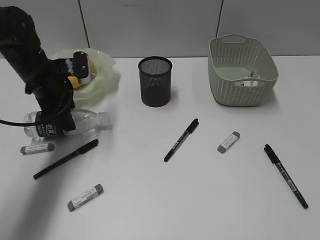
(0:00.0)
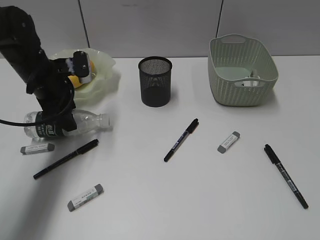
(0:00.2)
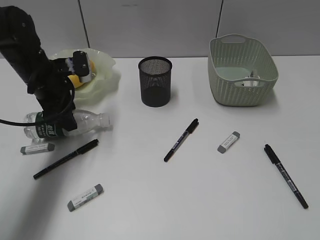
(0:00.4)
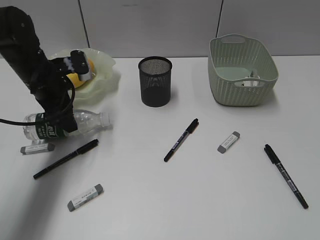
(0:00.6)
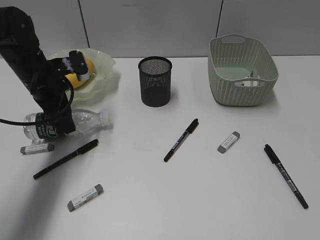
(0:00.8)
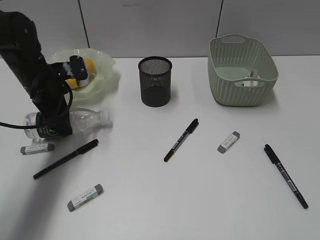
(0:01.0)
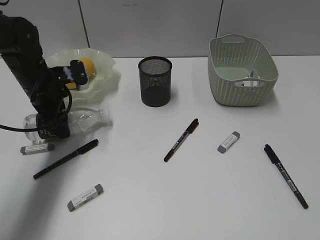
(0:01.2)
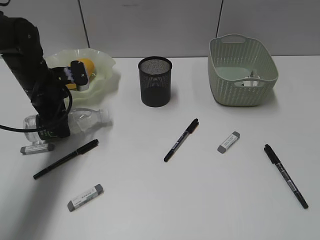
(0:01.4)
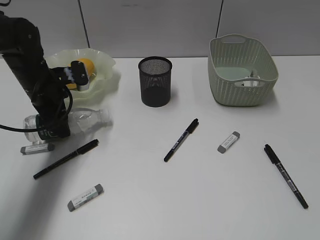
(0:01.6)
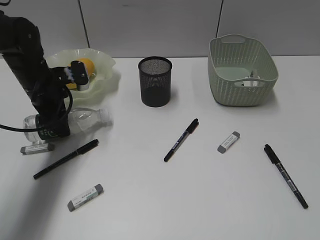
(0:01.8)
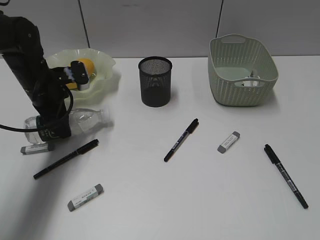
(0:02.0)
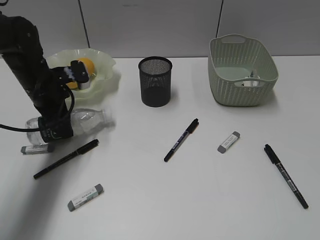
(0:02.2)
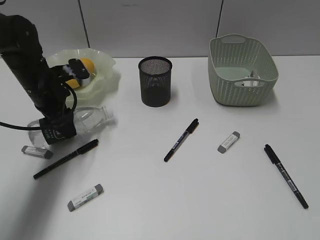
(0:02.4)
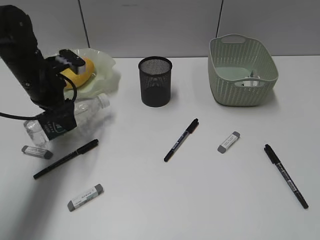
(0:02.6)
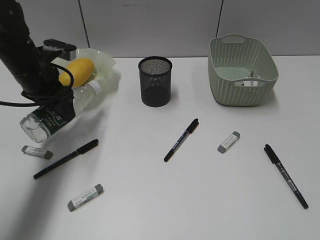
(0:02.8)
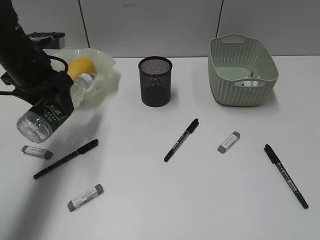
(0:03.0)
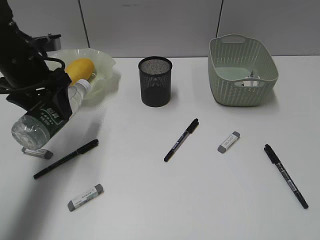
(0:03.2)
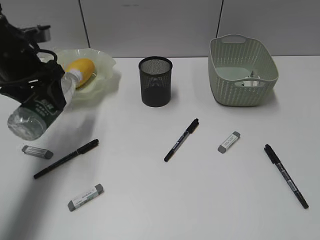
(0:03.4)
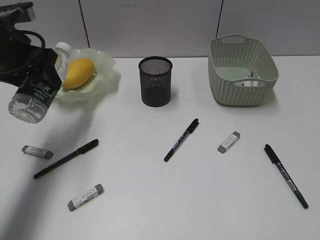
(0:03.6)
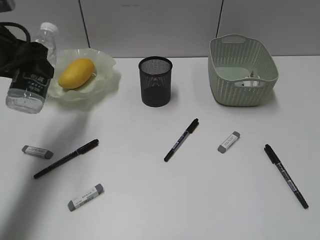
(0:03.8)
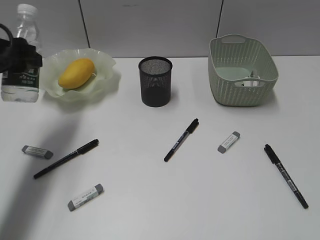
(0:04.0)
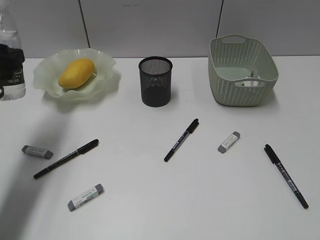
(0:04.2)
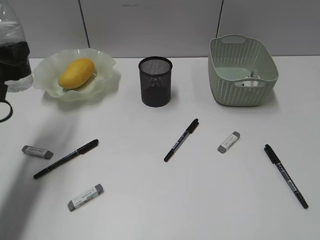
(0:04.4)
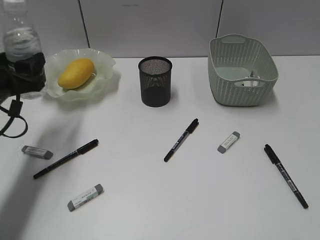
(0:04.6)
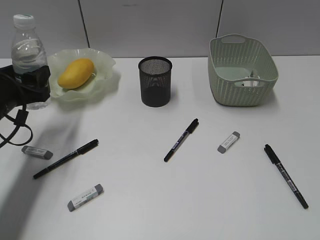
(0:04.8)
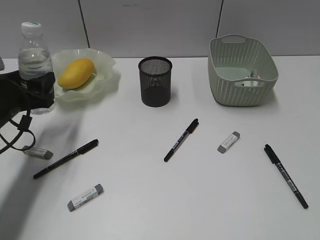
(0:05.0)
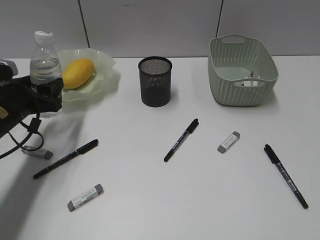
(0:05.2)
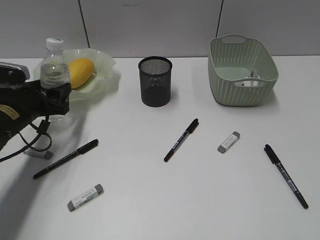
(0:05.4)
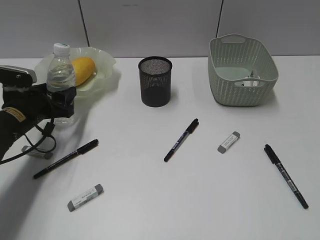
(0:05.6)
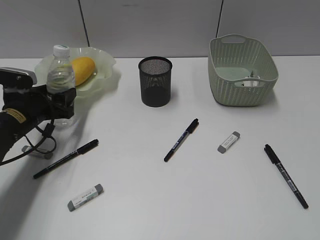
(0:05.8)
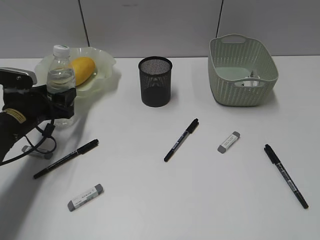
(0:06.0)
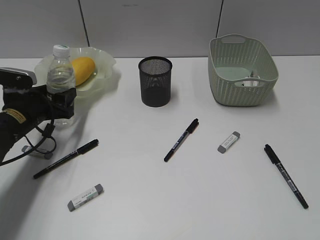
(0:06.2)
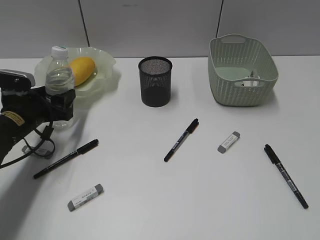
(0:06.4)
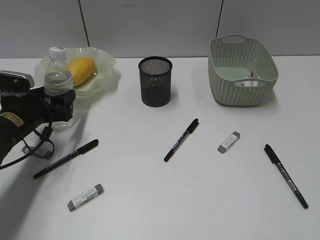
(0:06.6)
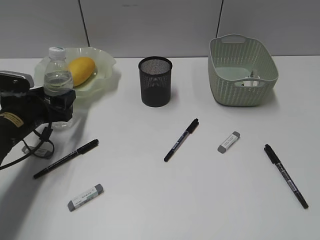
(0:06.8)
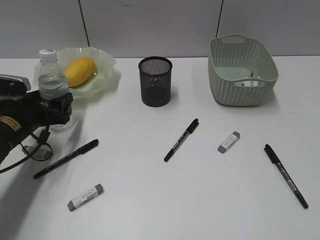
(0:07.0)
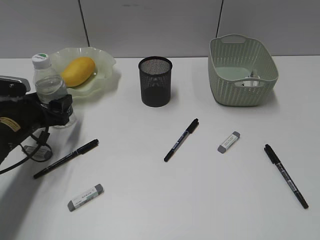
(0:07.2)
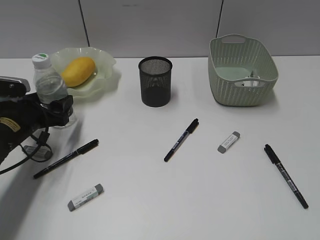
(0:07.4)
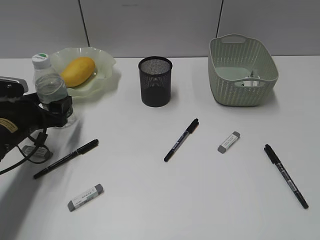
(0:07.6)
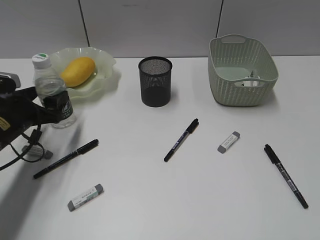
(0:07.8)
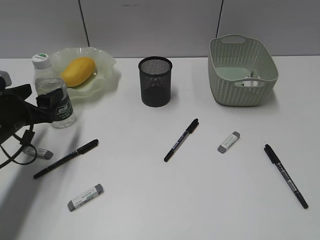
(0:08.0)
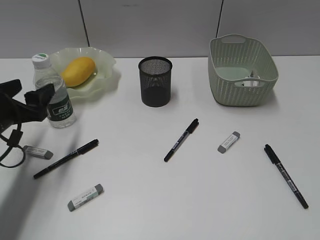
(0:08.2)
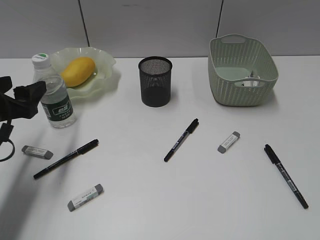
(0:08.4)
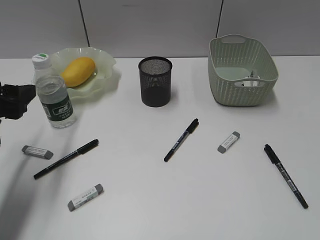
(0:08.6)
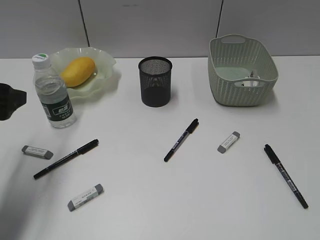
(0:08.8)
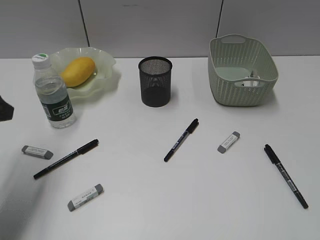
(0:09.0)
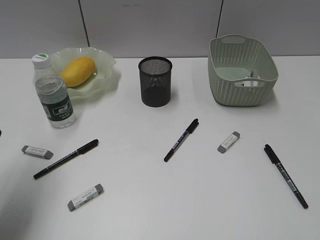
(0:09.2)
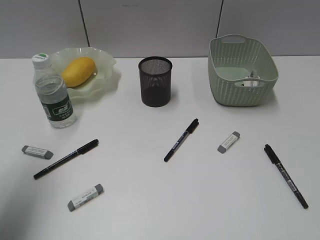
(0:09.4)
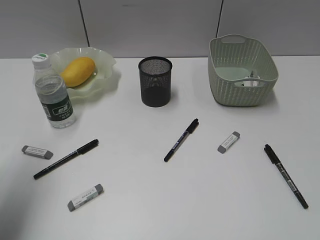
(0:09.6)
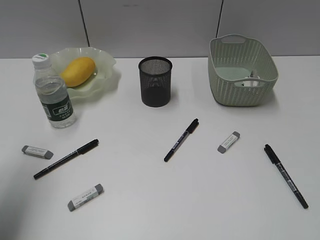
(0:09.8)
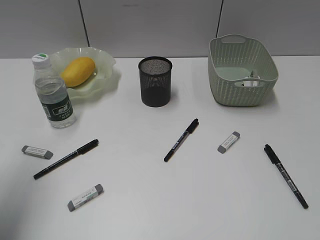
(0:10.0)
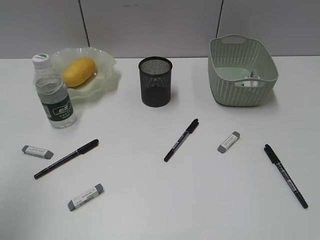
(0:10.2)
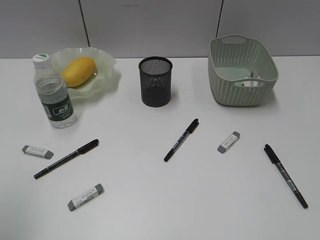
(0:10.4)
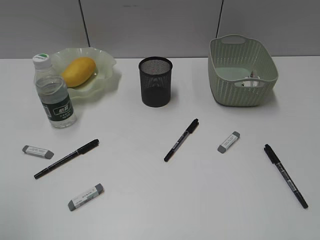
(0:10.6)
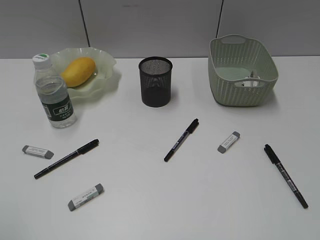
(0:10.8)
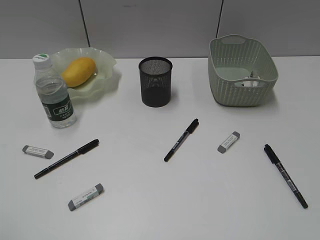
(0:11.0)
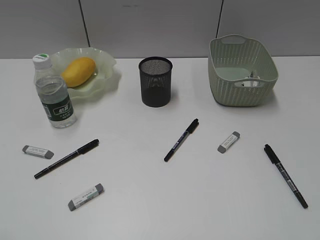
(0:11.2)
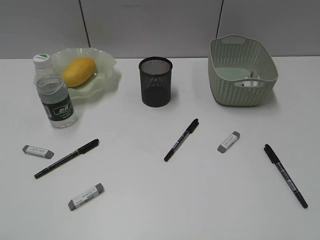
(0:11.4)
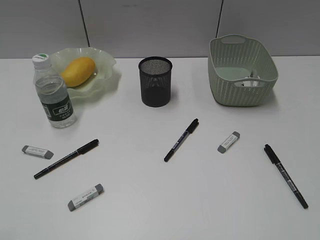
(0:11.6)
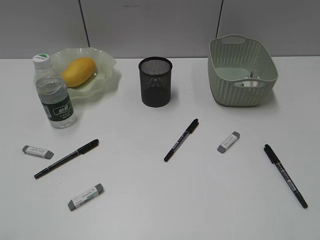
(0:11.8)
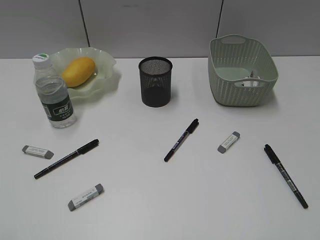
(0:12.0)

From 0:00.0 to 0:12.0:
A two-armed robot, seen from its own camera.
Step, from 0:00.0 to 0:02.0: Grasp the bottle with left gripper.
Step, from 0:02.2 to 0:08.0: Stand the bottle with left gripper.
From 0:00.0 to 0:01.6: The grippers move only a little.
From 0:01.6 to 0:03.0: The left gripper travels upward by roughly 5 cm.
From 0:03.0 to 0:04.4: The left gripper is displaced backward and to the left by about 10 cm.
From 0:04.4 to 0:06.0: The left gripper moves downward and forward, roughly 15 cm.
From 0:06.0 to 0:07.6: The grippers move only a little.
From 0:07.6 to 0:09.0: The left gripper heads upward and backward, covering roughly 15 cm.
From 0:09.0 to 0:10.4: The left gripper heads backward and upward, covering roughly 15 cm.

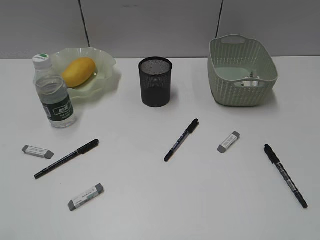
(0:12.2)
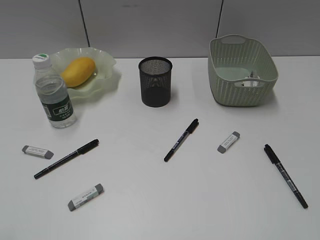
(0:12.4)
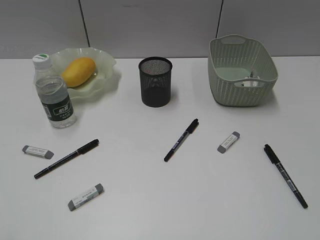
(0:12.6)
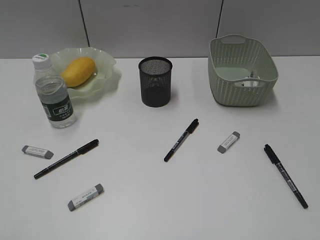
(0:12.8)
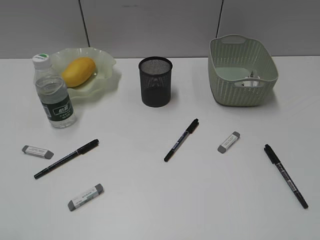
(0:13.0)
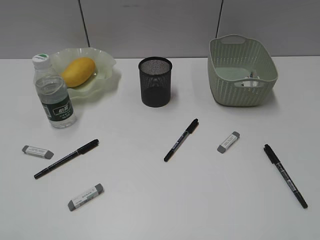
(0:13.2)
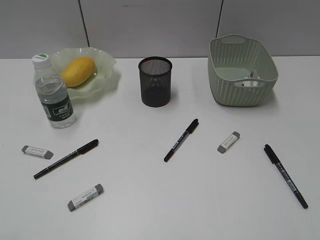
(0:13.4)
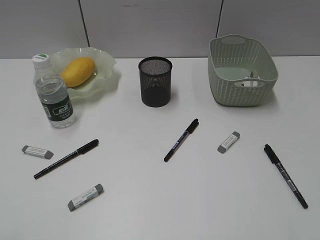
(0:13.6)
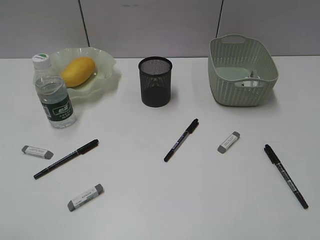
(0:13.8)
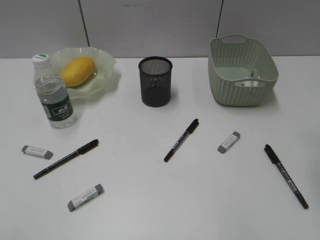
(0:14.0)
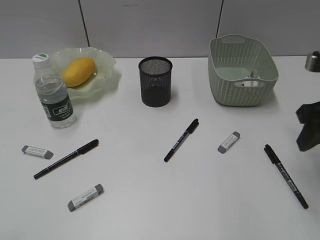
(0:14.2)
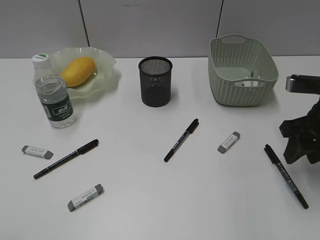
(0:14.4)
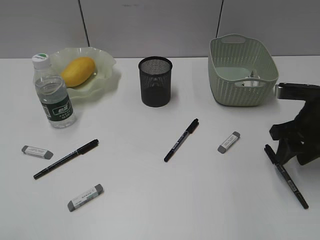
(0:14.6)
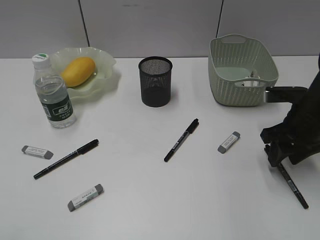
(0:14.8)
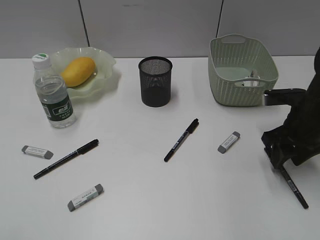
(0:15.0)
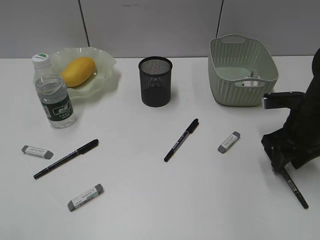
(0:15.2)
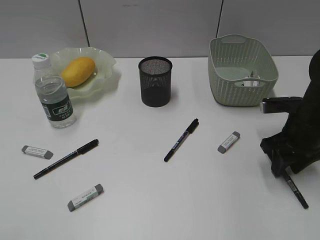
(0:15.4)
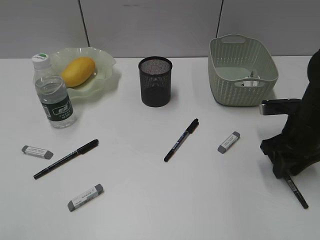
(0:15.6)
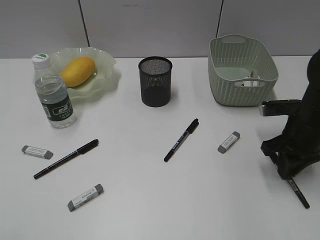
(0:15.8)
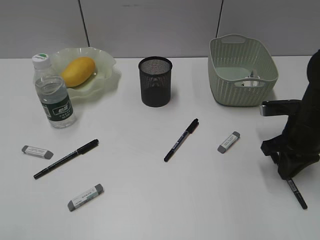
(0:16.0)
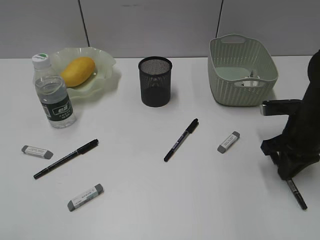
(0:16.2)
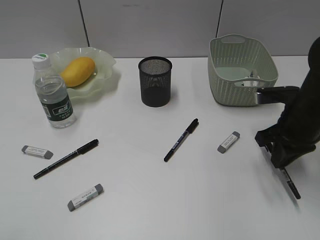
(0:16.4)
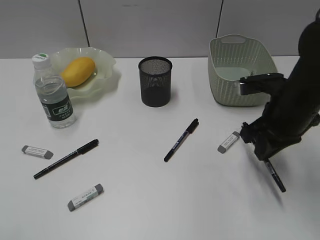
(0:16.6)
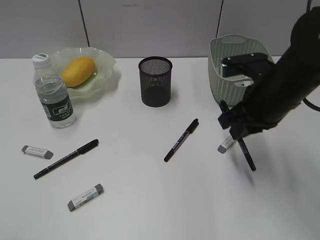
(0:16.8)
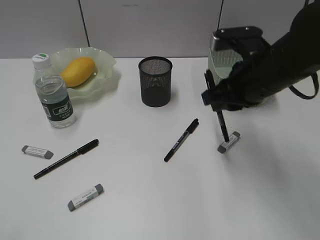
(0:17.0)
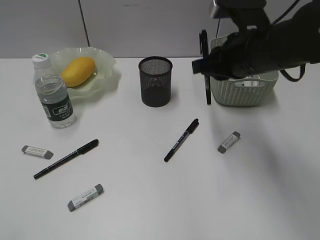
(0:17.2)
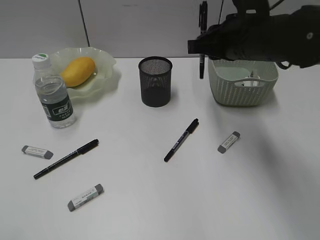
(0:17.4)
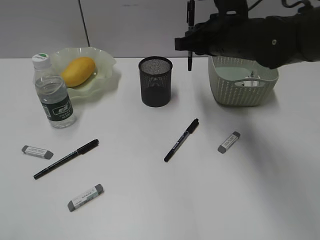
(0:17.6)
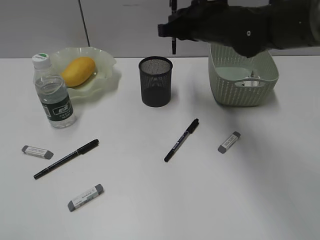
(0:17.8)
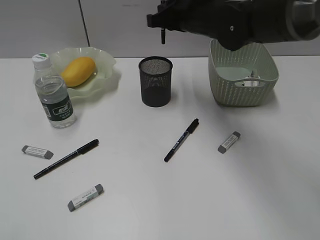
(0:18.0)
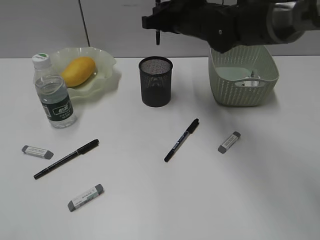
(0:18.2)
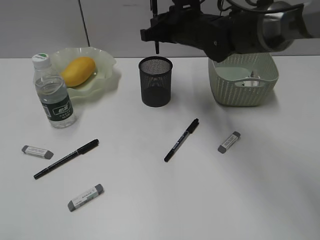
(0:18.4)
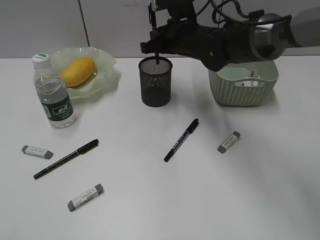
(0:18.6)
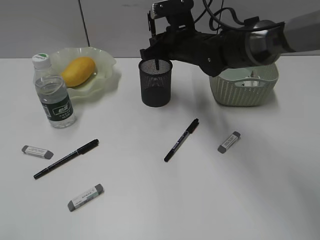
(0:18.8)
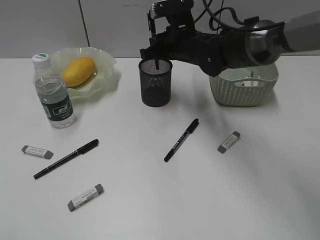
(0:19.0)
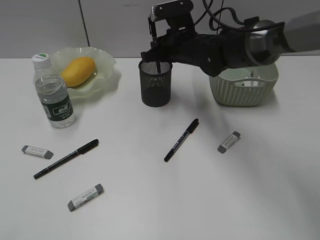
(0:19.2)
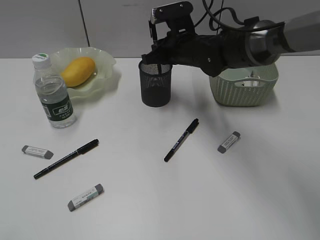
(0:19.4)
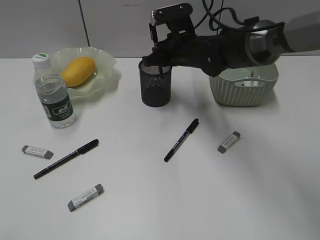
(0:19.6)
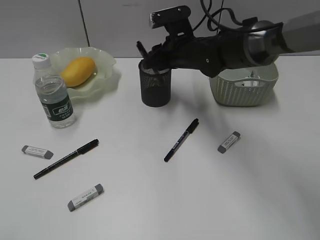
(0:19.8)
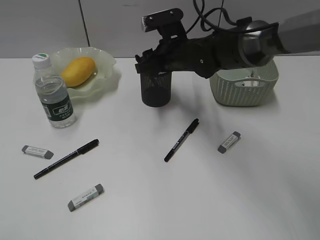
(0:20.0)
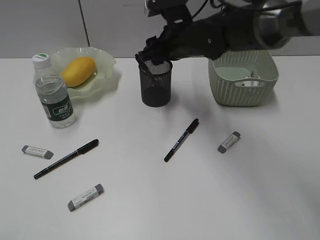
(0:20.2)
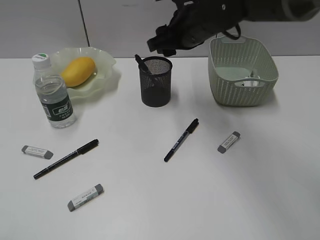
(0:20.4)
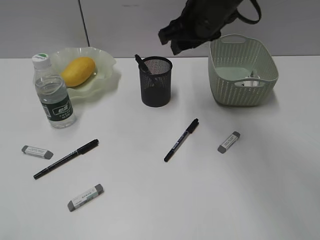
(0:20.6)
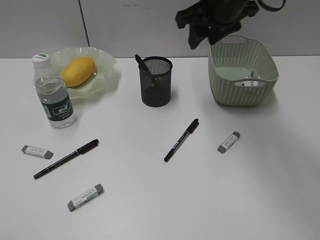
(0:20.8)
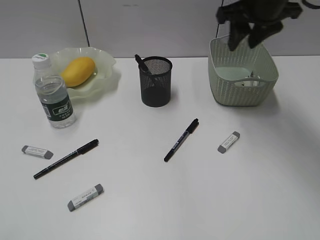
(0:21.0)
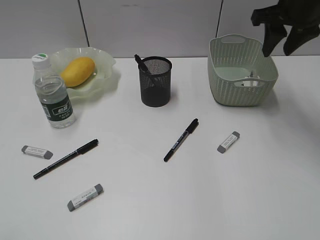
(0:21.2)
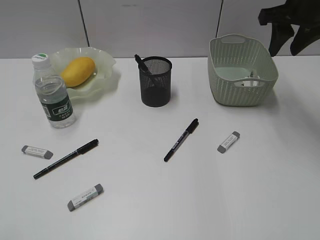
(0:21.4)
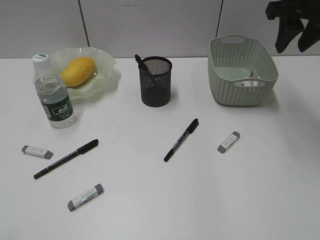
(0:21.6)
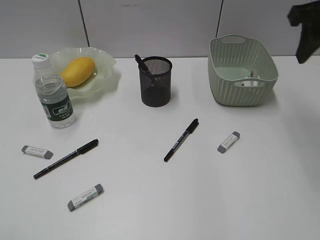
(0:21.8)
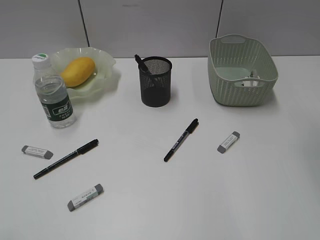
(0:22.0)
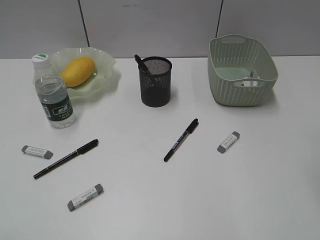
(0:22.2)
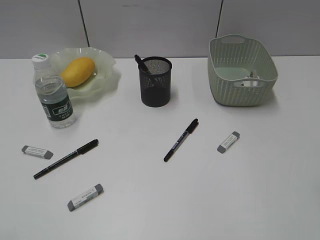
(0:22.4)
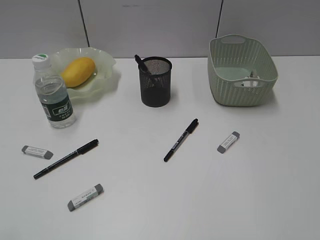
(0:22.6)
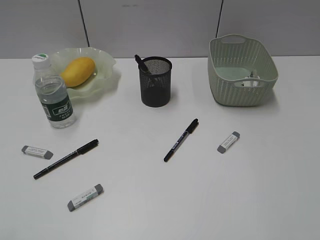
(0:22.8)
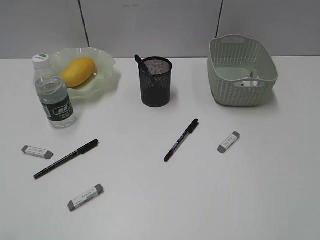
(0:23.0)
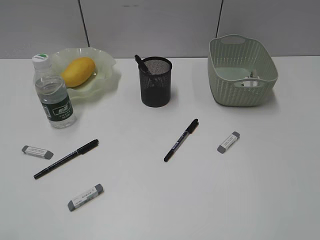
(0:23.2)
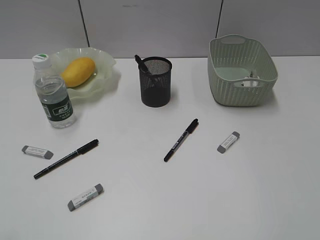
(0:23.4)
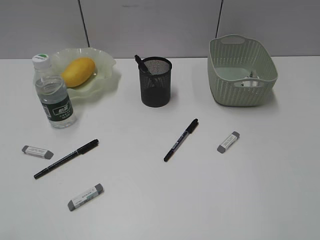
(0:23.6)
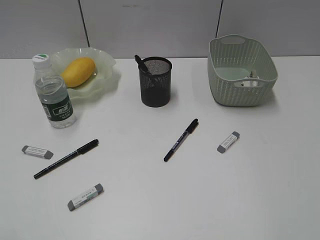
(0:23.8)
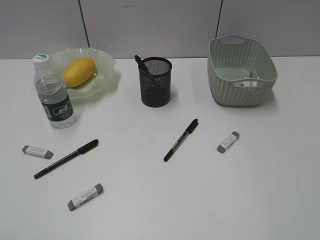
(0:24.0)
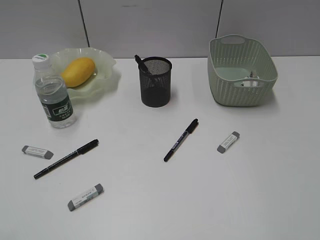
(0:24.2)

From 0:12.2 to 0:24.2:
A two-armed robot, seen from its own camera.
Step, from 0:12.2 to 0:15.8: Grasp the black pen with right gripper.
Step, from 0:16.0 to 0:20.0: Place the black pen in pen holder with right gripper.
From 0:13.8 to 0:15.2: The right gripper moves downward and forward, approximately 25 cm.
From 0:15.2 to 0:16.6: The right gripper ends up about 5 cm from where it was, and closes its fingers.
From 0:16.6 to 0:18.2: The right gripper travels to the left, forward and upward by approximately 20 cm.
From 0:18.2 to 0:19.8: The right gripper travels downward by approximately 5 cm, and opens its fingers.
From 0:19.8 to 0:21.2: The right gripper is displaced to the right and upward by roughly 20 cm.
From 0:21.2 to 0:22.6: The right gripper travels backward by some 30 cm.
